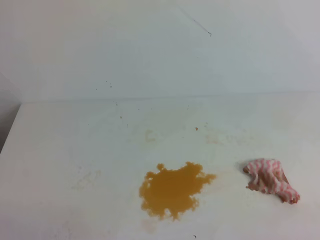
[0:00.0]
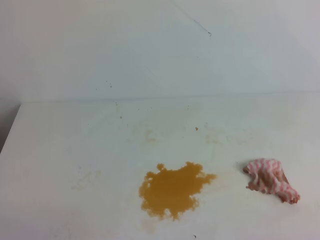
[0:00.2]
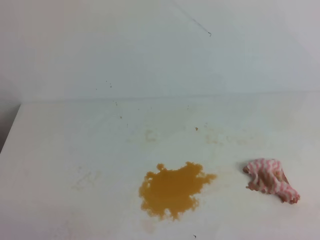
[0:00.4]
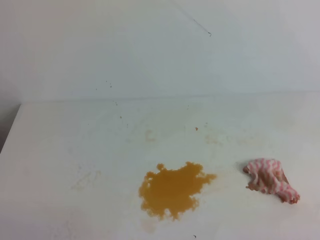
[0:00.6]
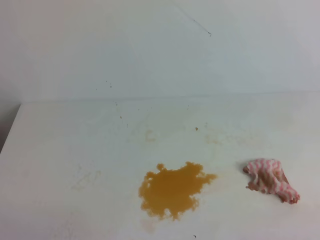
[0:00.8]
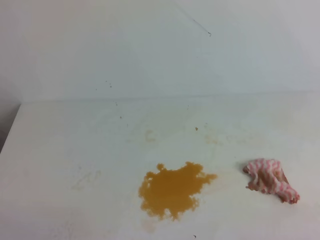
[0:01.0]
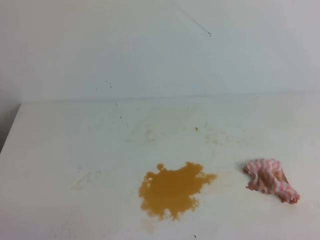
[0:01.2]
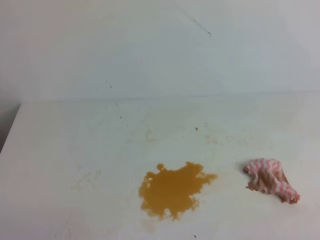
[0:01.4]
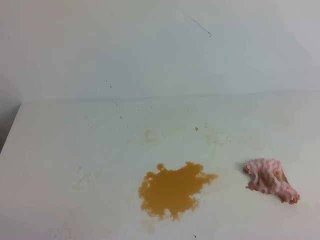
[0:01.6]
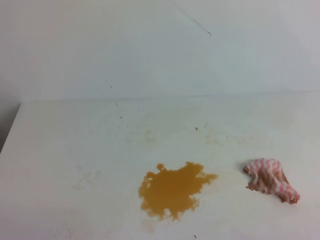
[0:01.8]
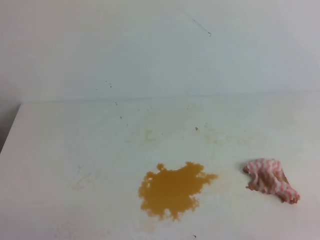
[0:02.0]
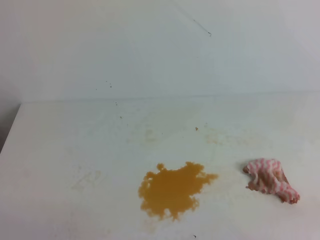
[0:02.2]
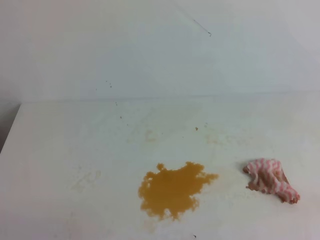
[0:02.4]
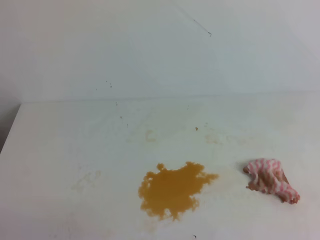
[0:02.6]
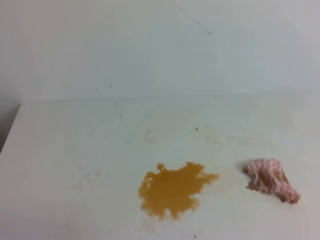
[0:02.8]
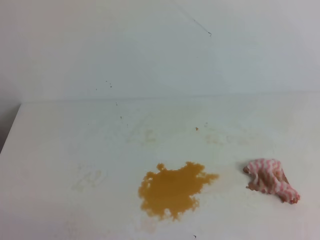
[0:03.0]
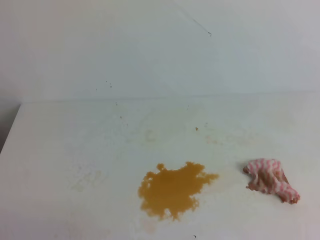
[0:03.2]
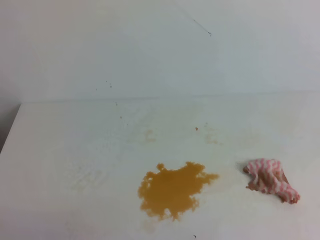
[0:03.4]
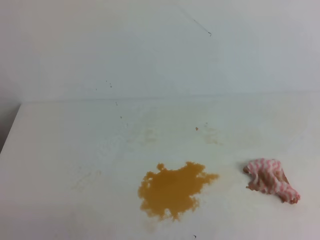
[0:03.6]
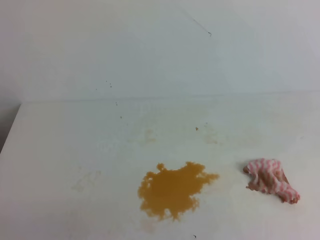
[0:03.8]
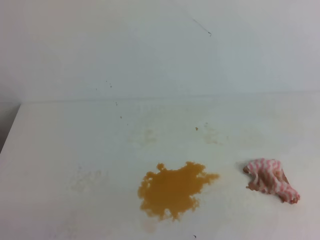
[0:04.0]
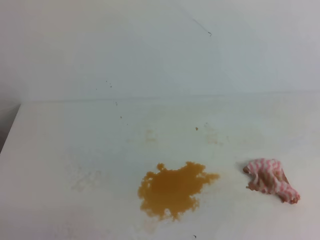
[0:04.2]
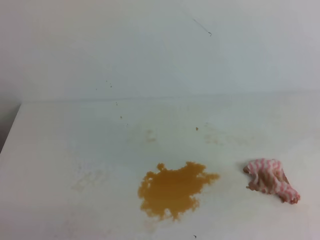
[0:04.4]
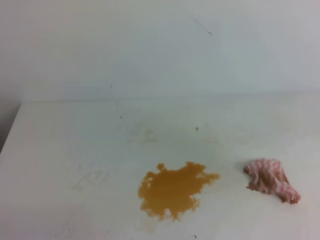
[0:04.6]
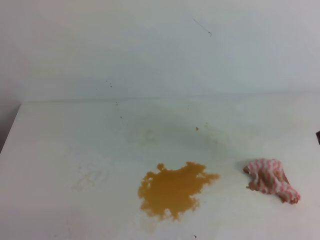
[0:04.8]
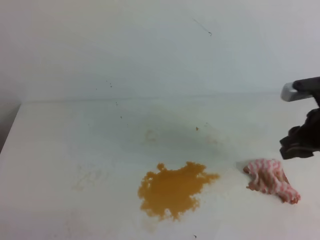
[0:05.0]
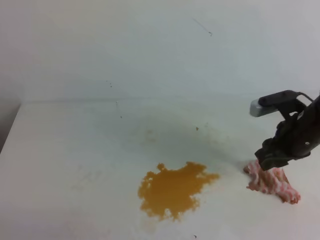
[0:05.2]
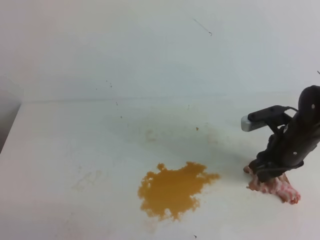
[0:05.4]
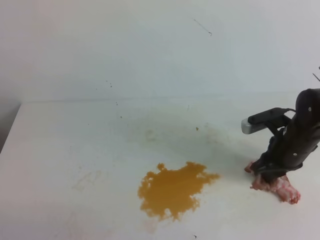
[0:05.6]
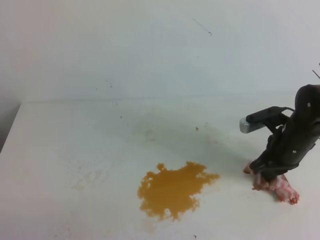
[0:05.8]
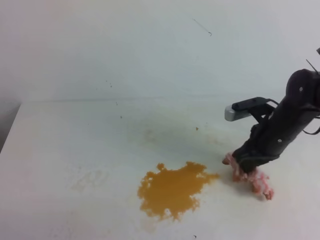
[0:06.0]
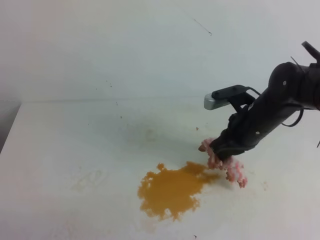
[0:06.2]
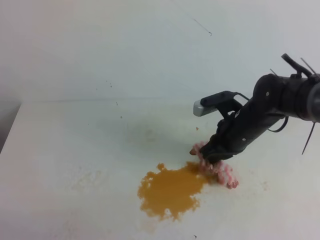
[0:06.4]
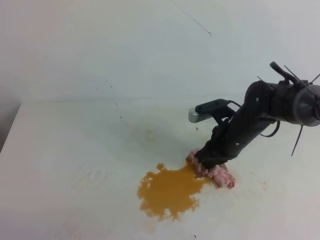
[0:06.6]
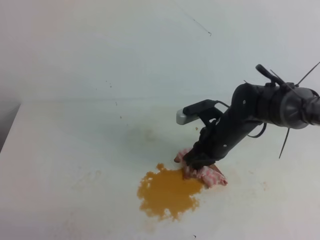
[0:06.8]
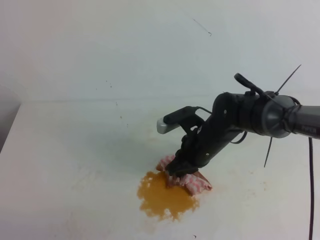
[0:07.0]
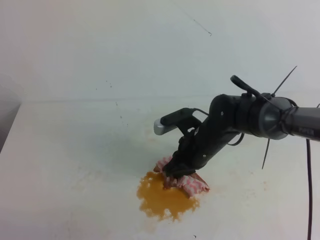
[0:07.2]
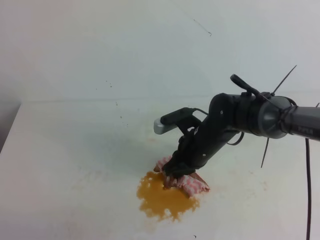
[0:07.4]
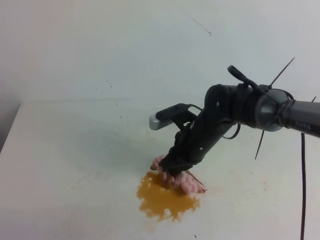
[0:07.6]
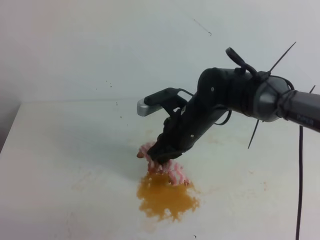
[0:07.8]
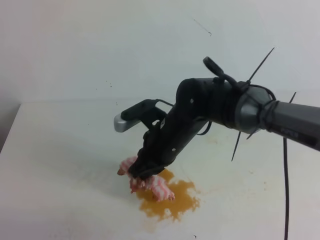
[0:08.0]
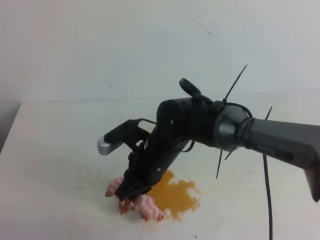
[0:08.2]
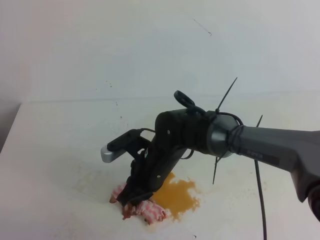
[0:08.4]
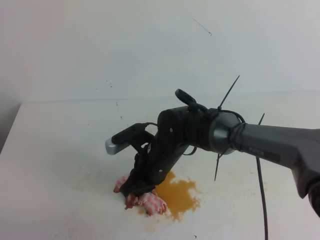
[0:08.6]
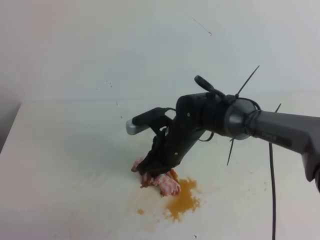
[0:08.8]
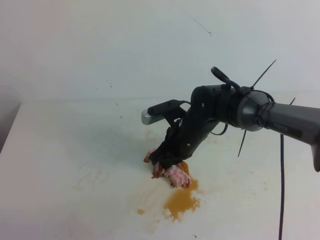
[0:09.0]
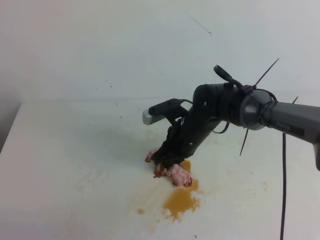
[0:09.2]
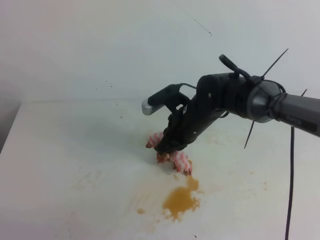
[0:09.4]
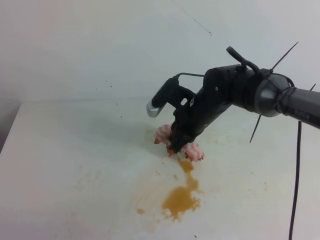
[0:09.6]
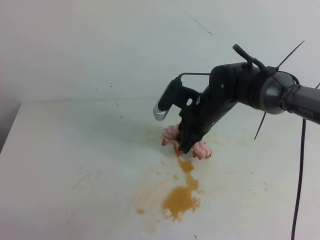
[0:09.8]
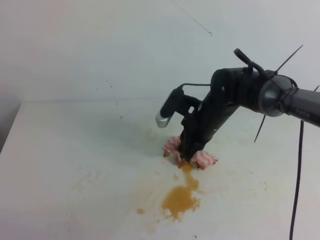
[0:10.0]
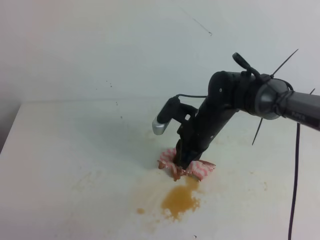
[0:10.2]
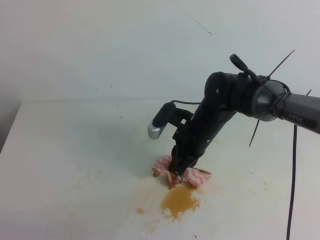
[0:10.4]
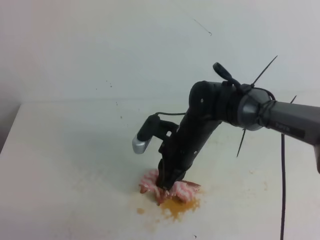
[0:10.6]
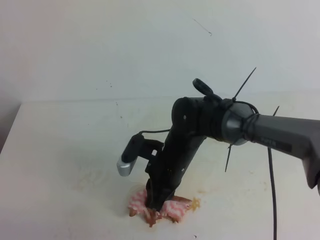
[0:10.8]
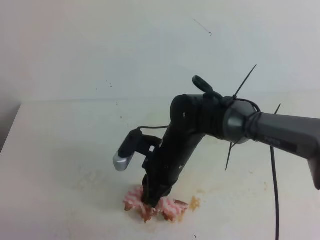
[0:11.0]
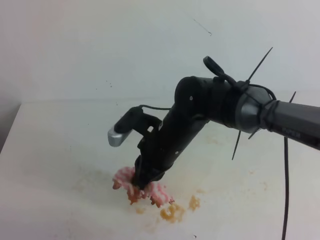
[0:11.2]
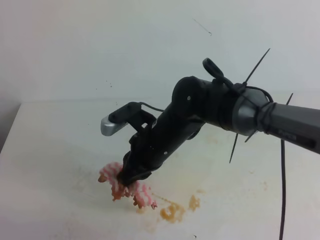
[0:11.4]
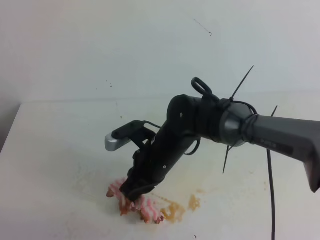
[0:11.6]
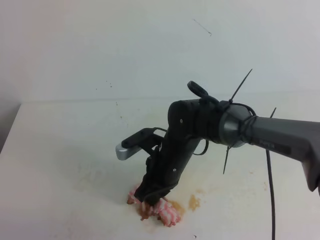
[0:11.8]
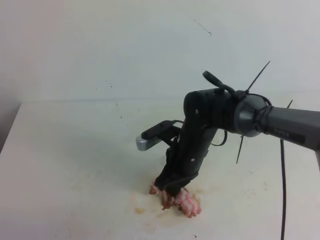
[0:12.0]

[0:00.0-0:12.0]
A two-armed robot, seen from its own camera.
0:00.0 to 0:01.6: The two grippers keep their place.
0:04.4 to 0:06.0: The right gripper goes about 25 cm forward, downward and to the left, and opens, then closes once more.
0:06.0 to 0:07.6: The right gripper heads to the left, covering some 15 cm.
0:07.6 to 0:09.0: The right gripper reaches roughly 10 cm to the left, then returns.

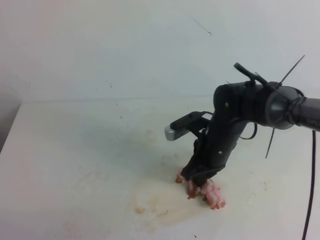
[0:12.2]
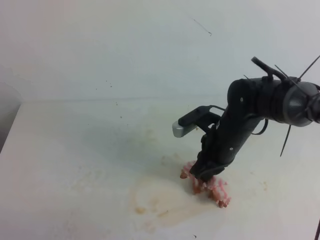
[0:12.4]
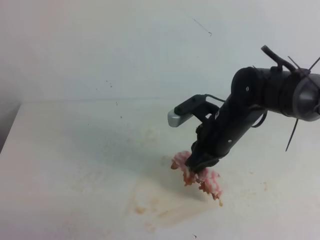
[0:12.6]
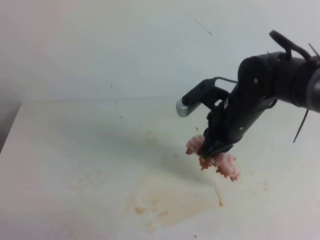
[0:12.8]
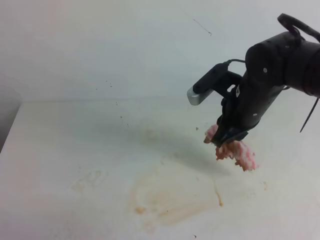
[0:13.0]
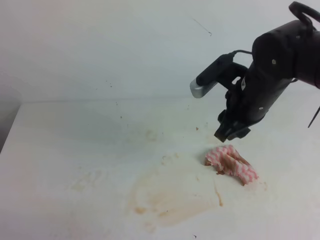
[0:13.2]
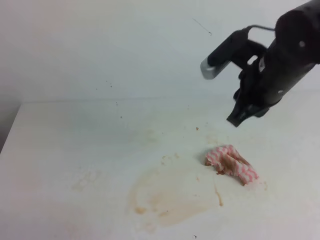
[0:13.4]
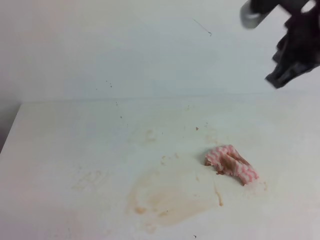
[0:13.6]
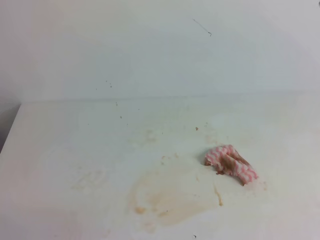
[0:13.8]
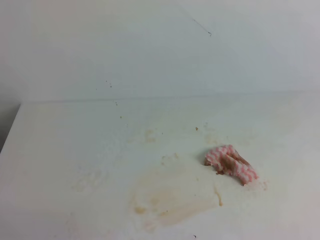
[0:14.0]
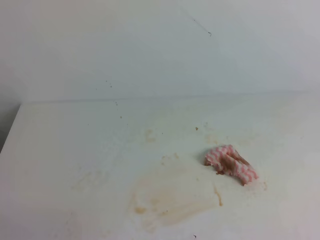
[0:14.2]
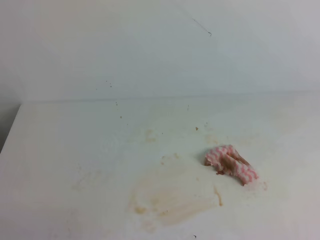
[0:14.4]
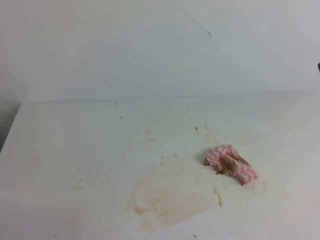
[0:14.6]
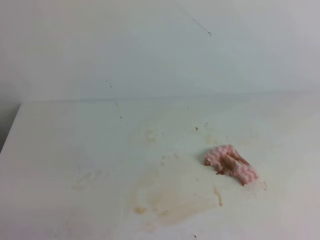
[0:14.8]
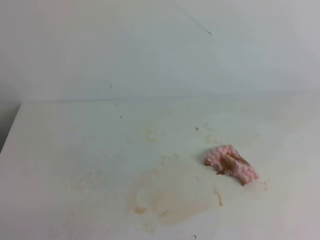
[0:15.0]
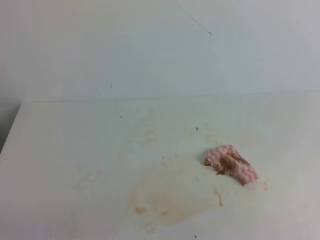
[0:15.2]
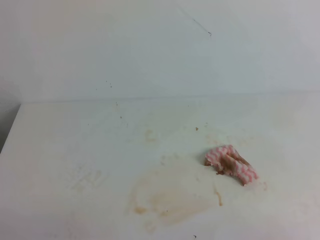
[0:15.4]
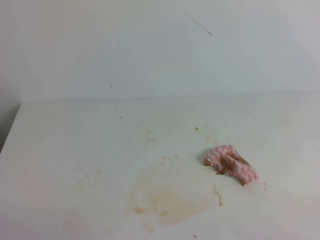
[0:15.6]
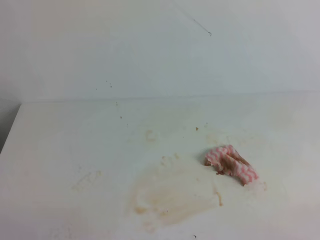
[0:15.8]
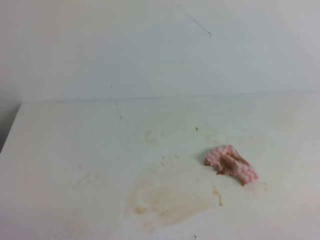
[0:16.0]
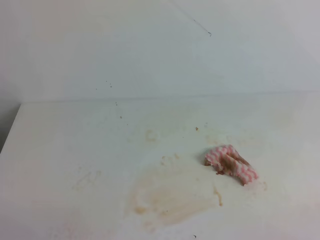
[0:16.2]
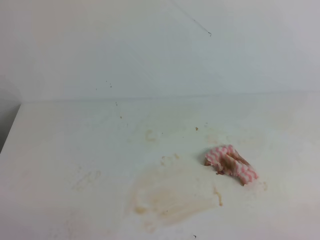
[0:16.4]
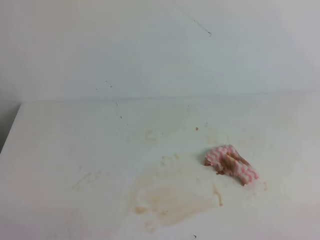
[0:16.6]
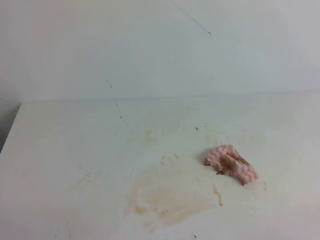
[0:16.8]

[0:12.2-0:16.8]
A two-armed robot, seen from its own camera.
0:12.2 to 0:13.8: The right gripper moves upward and to the right, about 35 cm, and opens and closes again.
0:13.8 to 0:15.2: The right gripper goes some 20 cm to the right, downward and backward.
